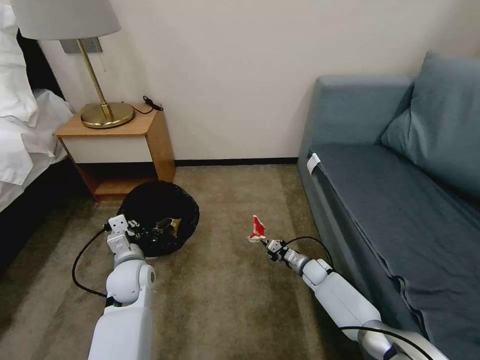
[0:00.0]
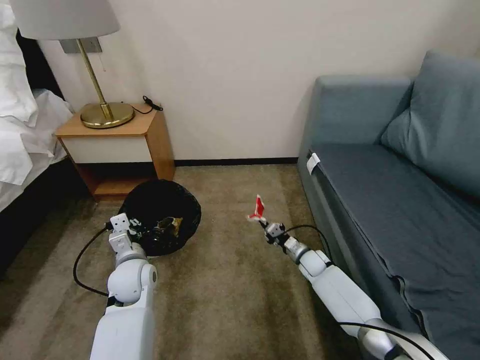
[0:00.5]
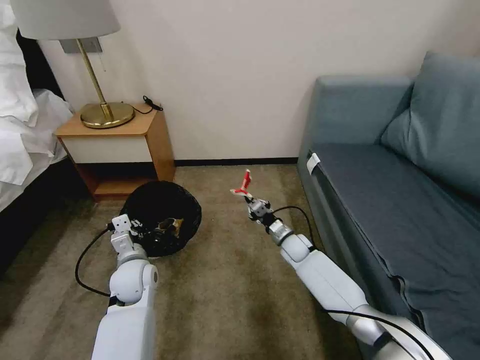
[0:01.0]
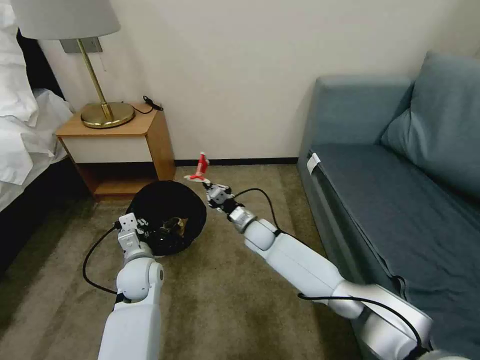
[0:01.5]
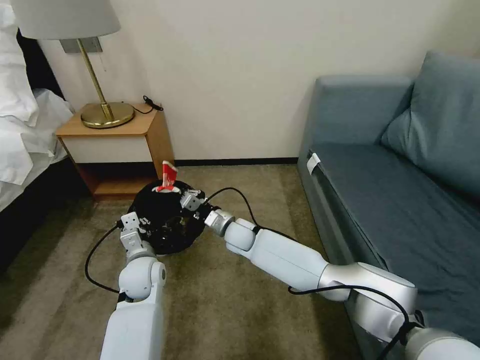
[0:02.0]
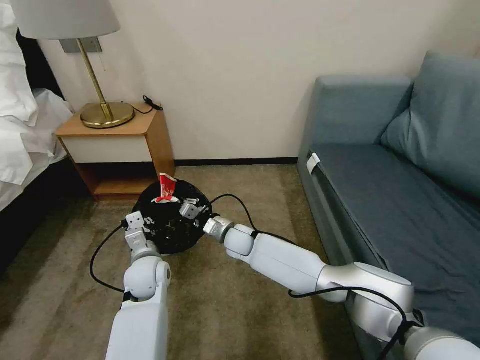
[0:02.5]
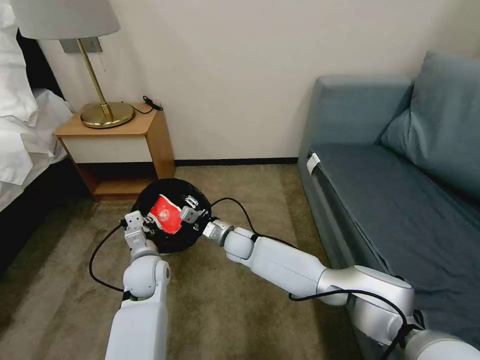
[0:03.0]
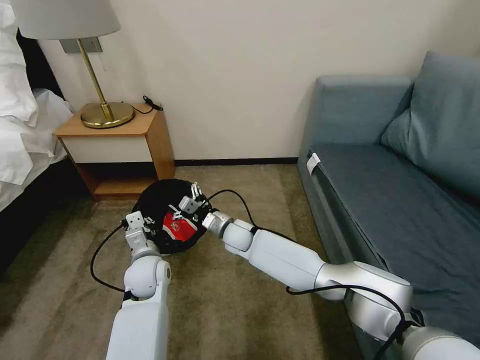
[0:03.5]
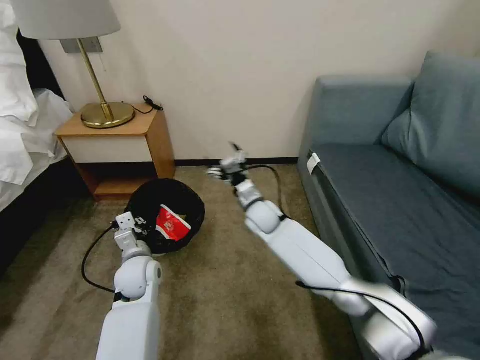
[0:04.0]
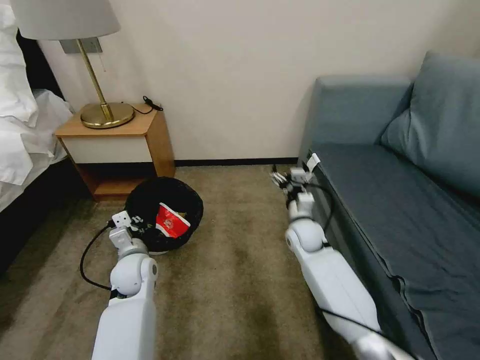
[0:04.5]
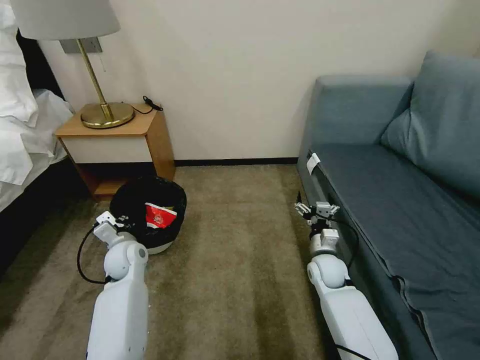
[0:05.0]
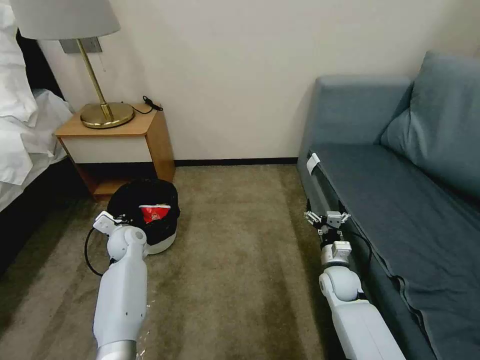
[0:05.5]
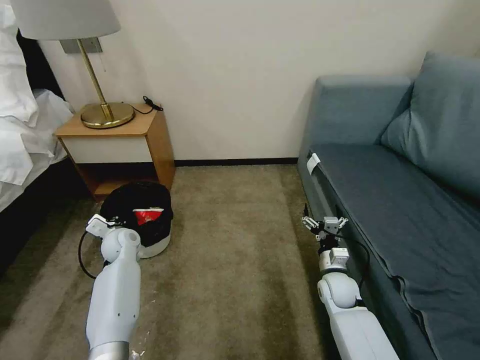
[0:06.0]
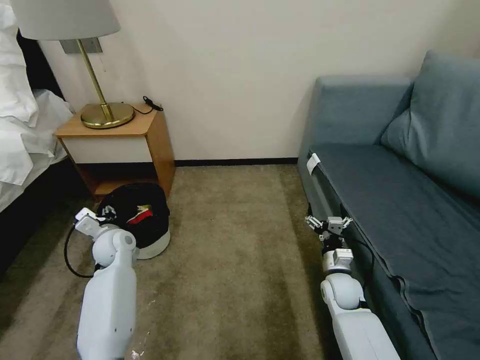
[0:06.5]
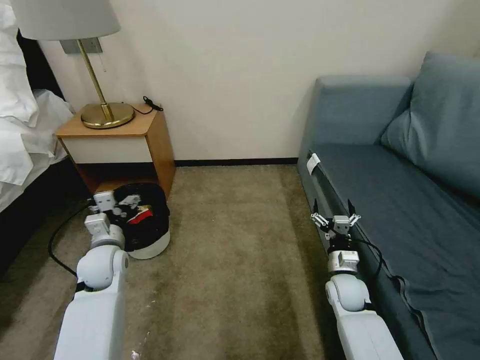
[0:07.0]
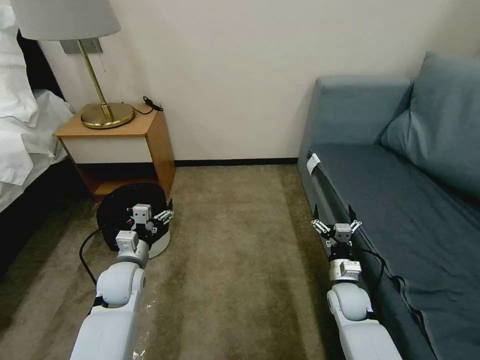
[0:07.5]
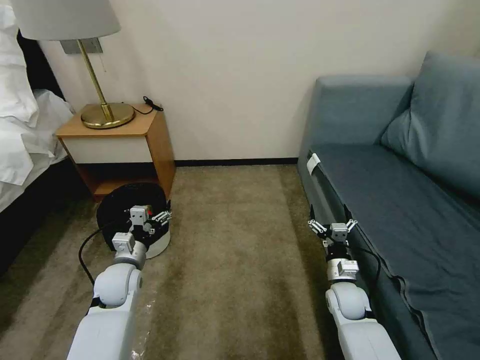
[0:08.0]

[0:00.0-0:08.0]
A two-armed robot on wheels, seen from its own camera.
Task of the whole recording: Pick up the trash bin, then pick up the garbage on the floor and place it into the trash bin.
0:00.0 to 0:02.0: The right gripper shifts roughly 30 cm to the left and upward.
0:02.0 to 0:04.0: The right gripper is displaced upward and to the right by some 10 cm, and opens.
0:04.0 to 0:06.0: The left gripper shifts roughly 15 cm forward and to the left; the right gripper heads to the right, backward and downward, covering roughly 30 cm.
0:06.0 to 0:08.0: The left gripper heads backward, covering some 10 cm, and opens.

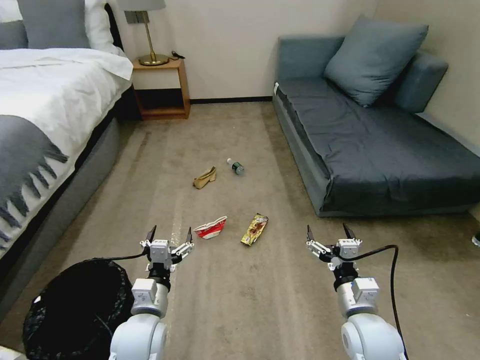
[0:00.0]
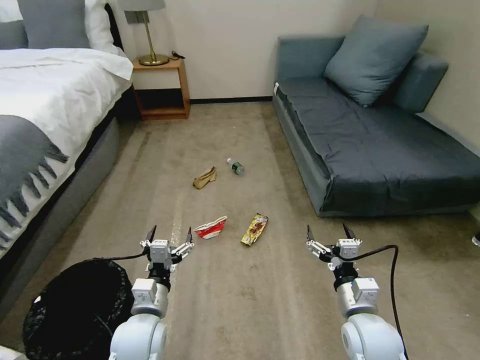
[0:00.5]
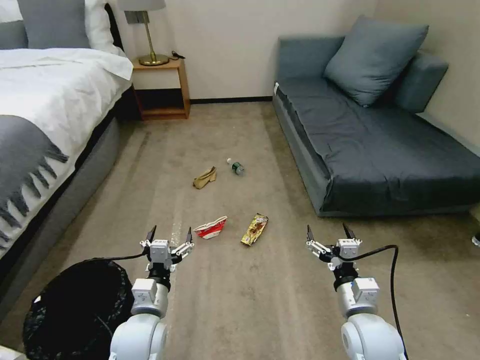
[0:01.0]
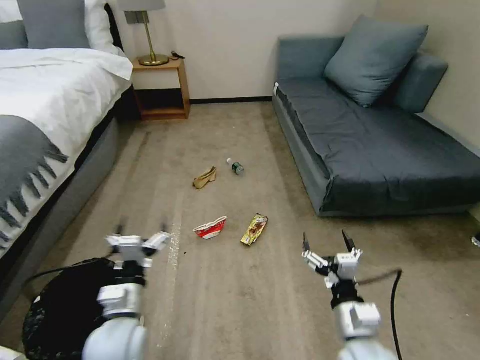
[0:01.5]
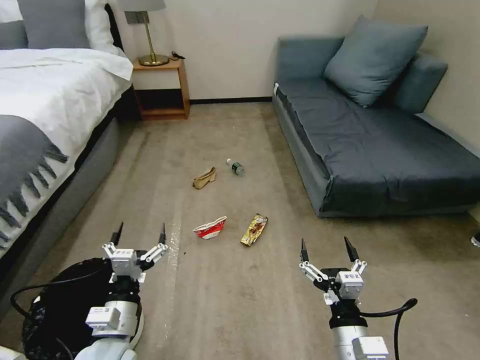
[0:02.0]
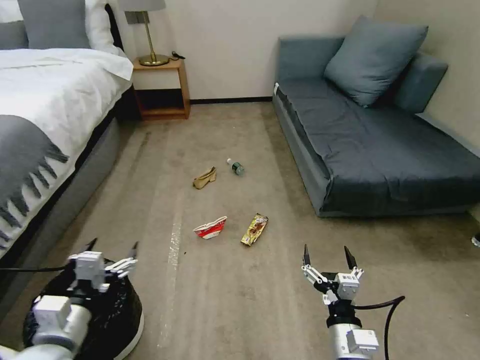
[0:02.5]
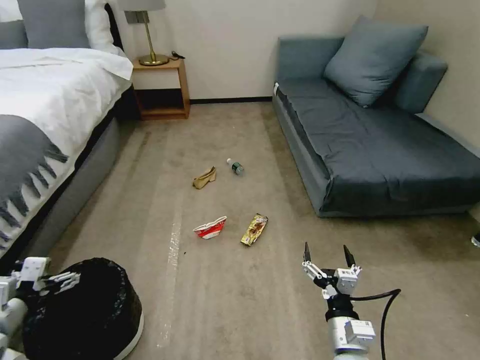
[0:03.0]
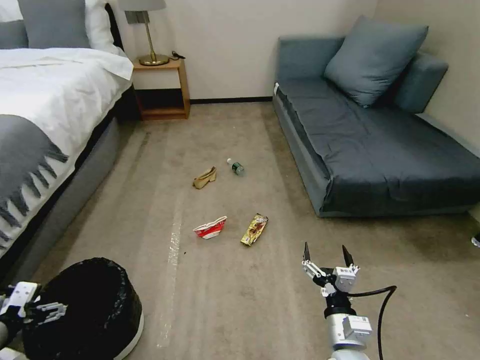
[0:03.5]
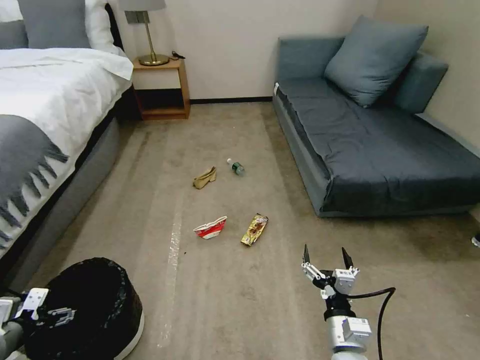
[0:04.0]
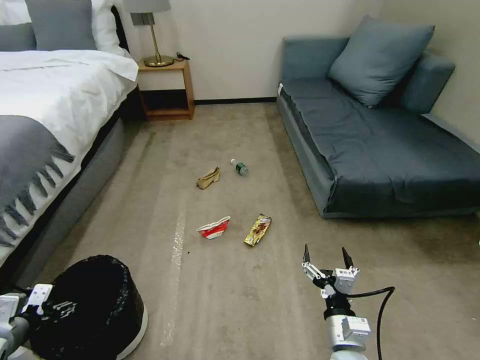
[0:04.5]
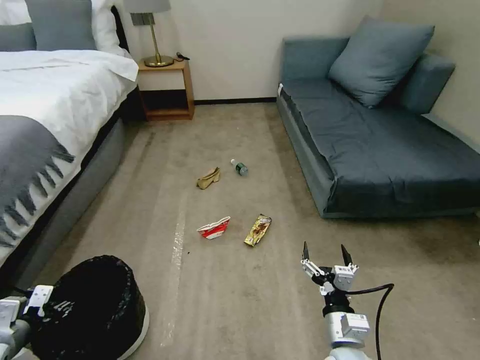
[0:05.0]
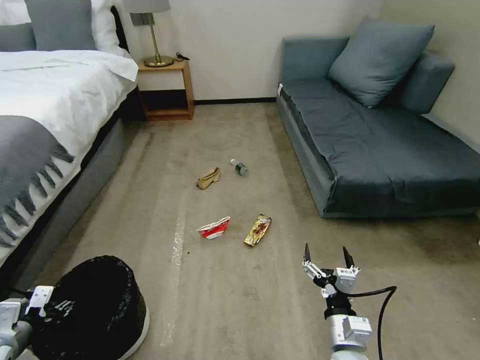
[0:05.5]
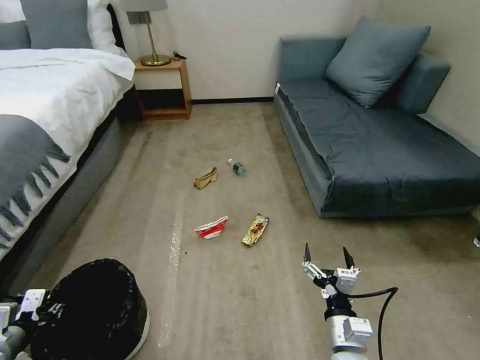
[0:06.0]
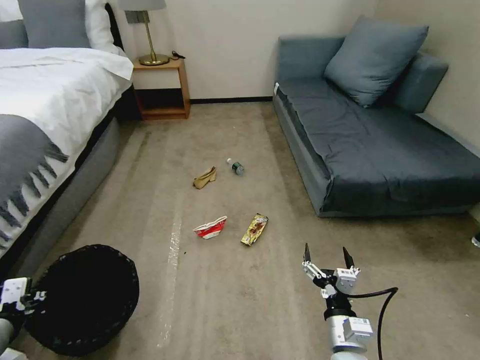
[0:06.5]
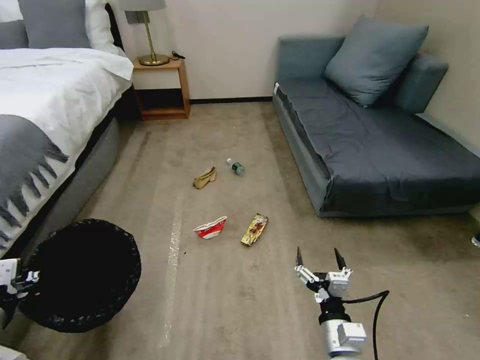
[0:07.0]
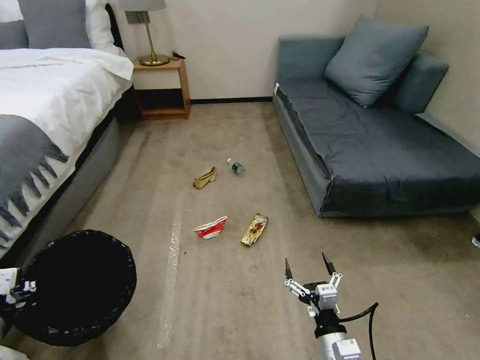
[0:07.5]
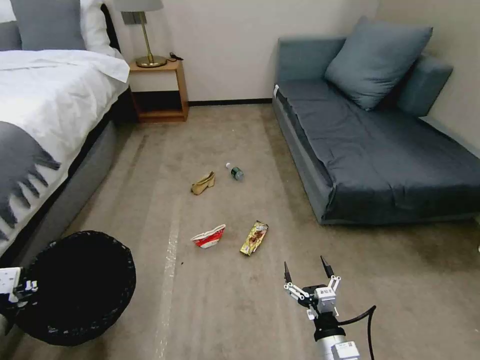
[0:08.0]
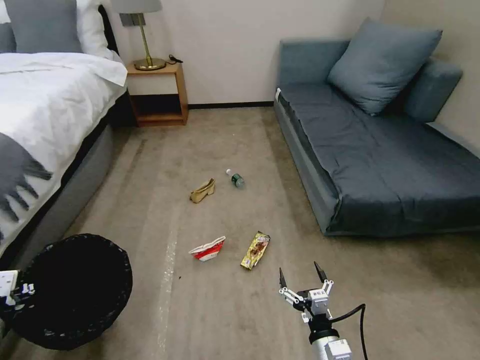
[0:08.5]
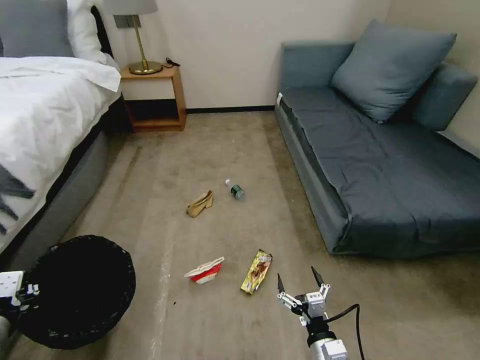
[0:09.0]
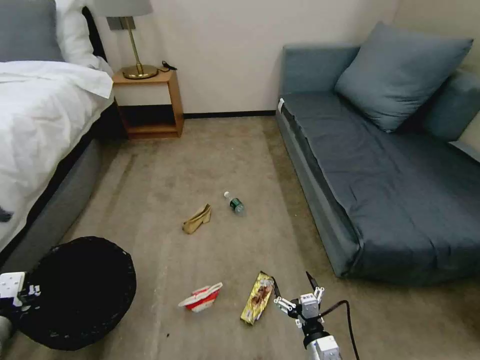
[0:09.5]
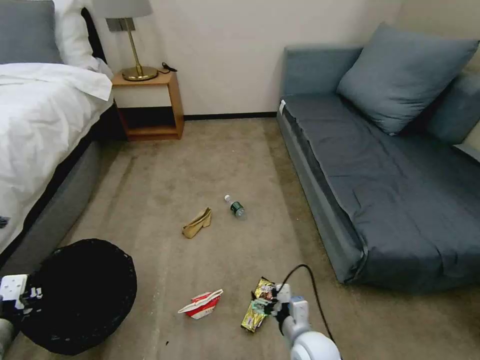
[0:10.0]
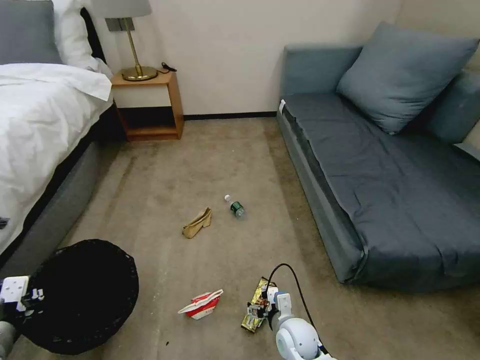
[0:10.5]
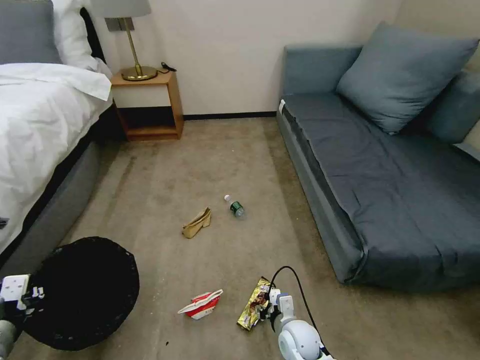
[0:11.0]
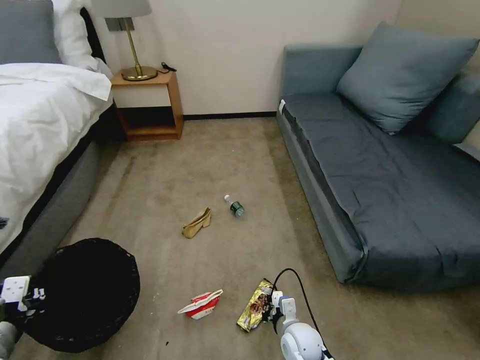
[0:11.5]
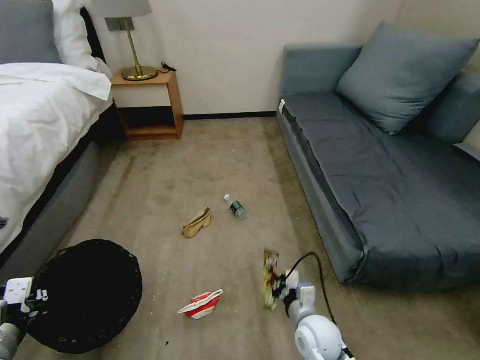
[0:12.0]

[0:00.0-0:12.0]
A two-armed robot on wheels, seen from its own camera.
Task of the whole recording: Pick up the trash bin, then pick up the garbage on the floor and place it into the trash bin.
0:02.0 to 0:04.0: The right gripper moves downward, some 5 cm. Meanwhile the left gripper shifts about 25 cm to the left.
0:04.0 to 0:06.0: The left gripper closes up.
0:06.0 to 0:08.0: The left gripper is displaced upward and to the right by about 10 cm.
0:08.0 to 0:10.0: The right gripper heads forward and to the left, covering roughly 10 cm.
0:10.0 to 0:12.0: The right gripper closes.

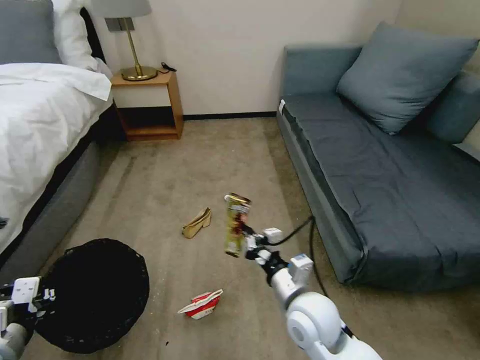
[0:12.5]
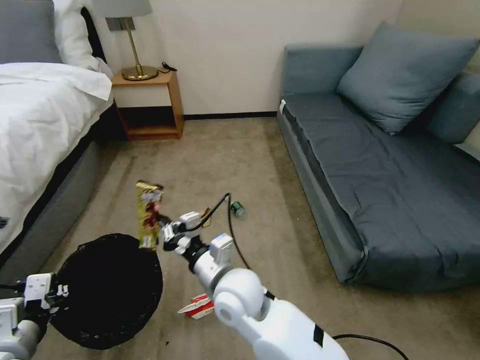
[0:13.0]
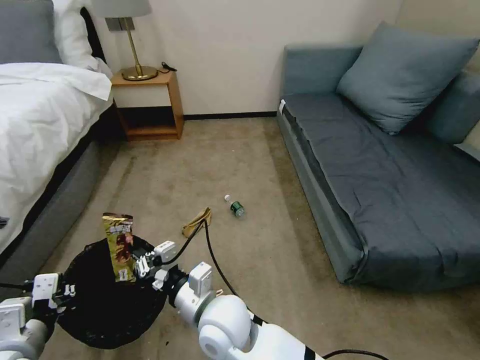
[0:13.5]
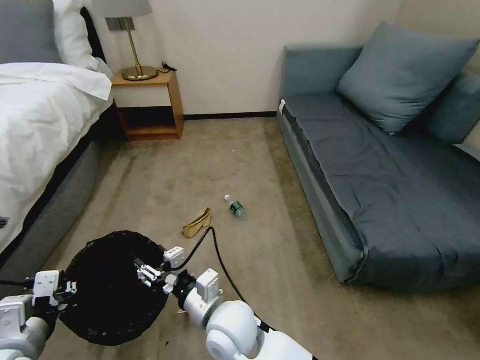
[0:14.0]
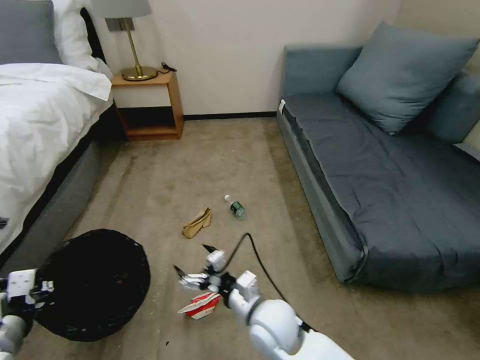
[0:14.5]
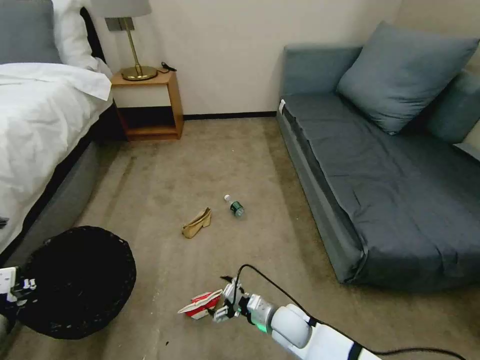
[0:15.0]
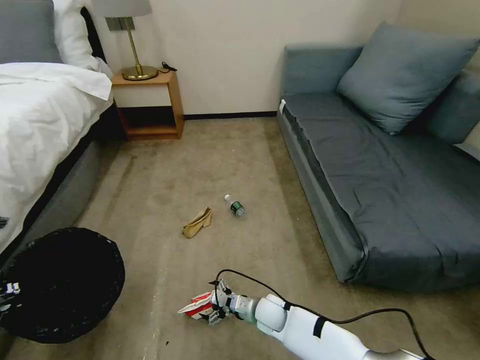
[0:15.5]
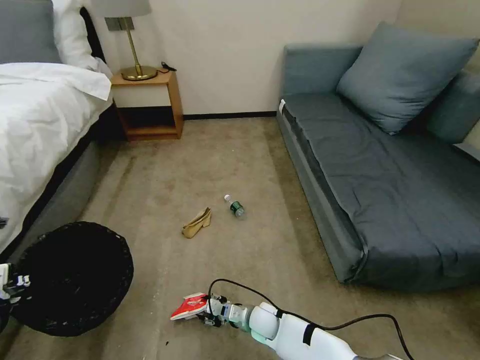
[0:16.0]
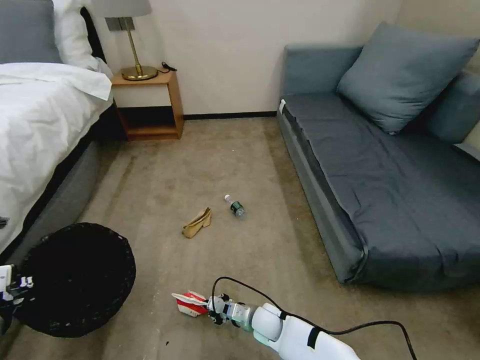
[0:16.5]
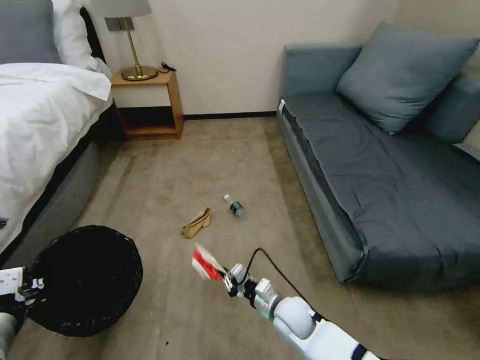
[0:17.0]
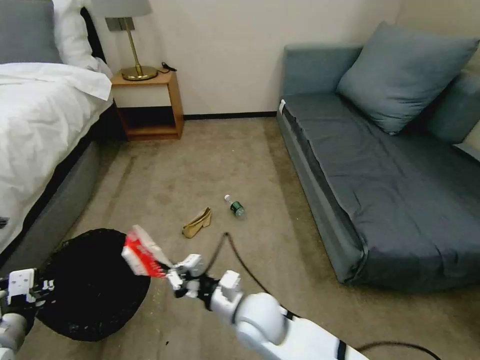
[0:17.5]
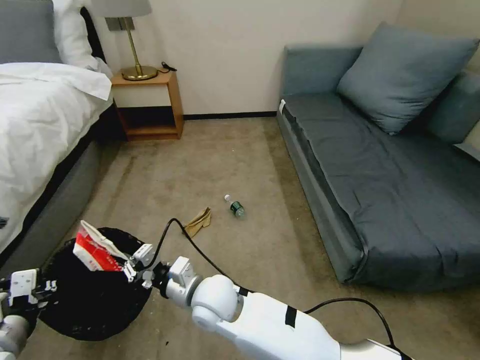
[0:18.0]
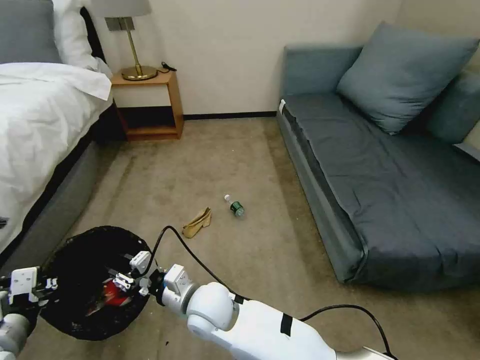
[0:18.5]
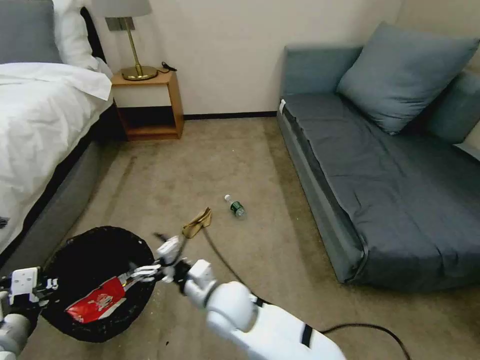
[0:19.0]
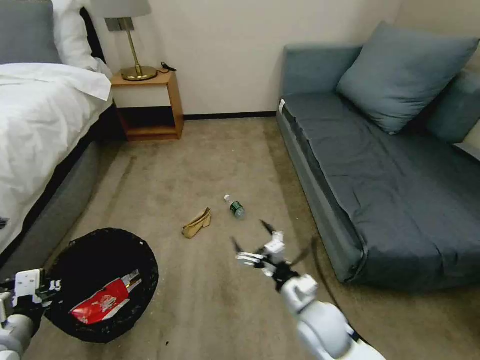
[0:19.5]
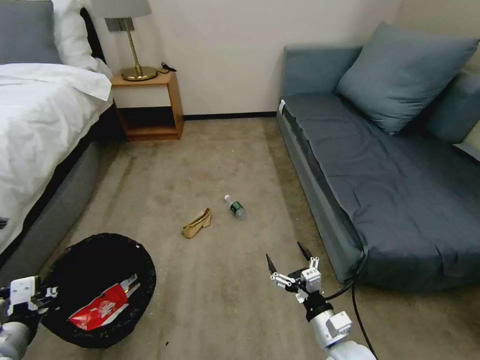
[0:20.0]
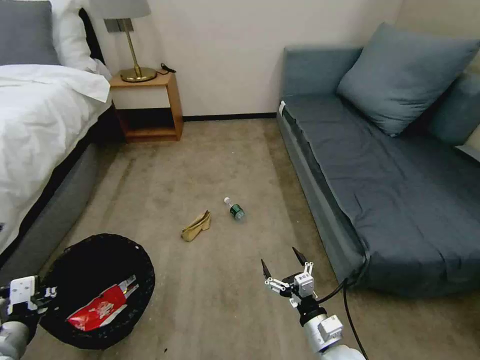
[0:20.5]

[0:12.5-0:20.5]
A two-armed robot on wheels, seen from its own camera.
Task of the whole recording: Pick up the trash bin, then pick up the garbage on the floor and place it into the trash bin.
0:12.5 to 0:14.5: The right gripper shifts some 10 cm to the left, and opens its fingers.
0:14.5 to 0:16.5: The right gripper is displaced downward by about 20 cm, and closes up.
0:16.5 to 0:18.5: The right gripper goes about 25 cm upward and to the left.
0:18.5 to 0:20.5: The right gripper moves to the right, about 30 cm, and opens its fingers.
